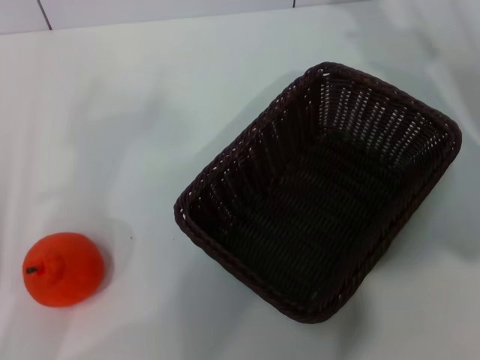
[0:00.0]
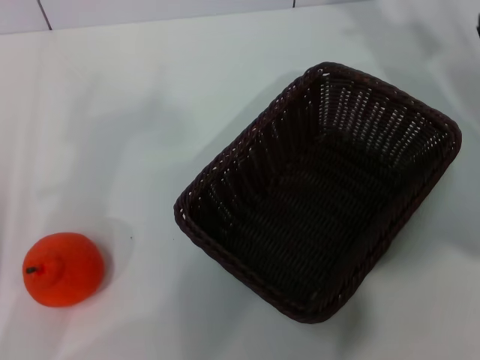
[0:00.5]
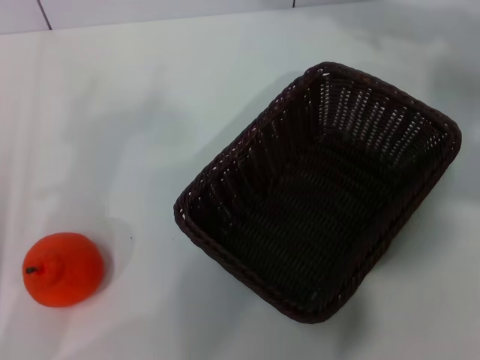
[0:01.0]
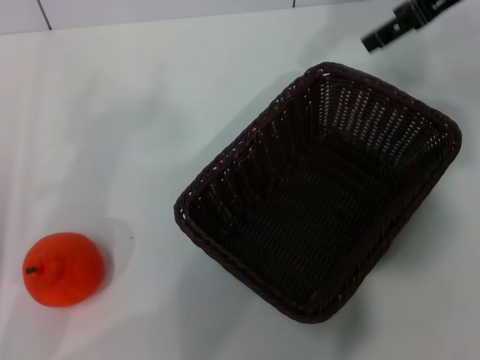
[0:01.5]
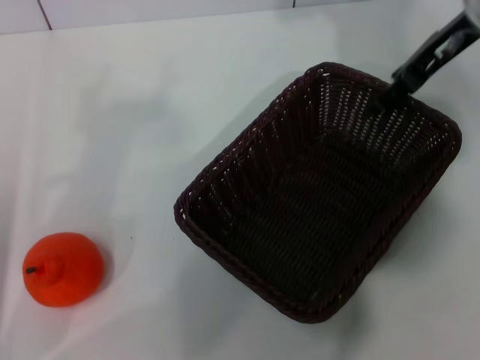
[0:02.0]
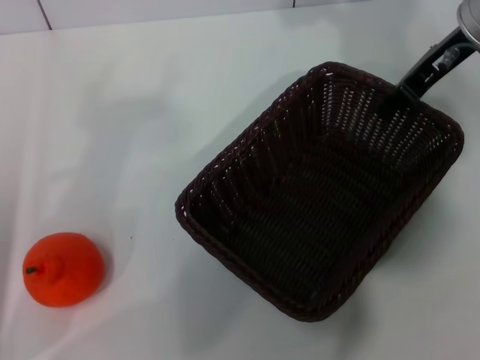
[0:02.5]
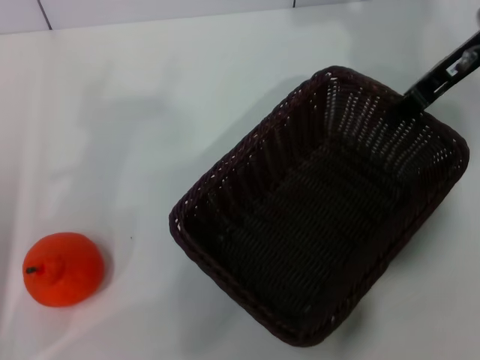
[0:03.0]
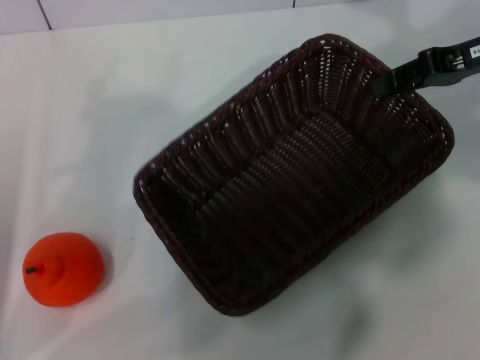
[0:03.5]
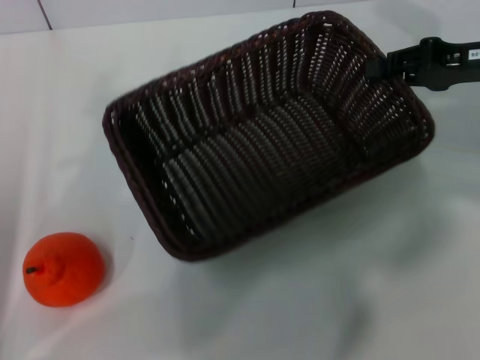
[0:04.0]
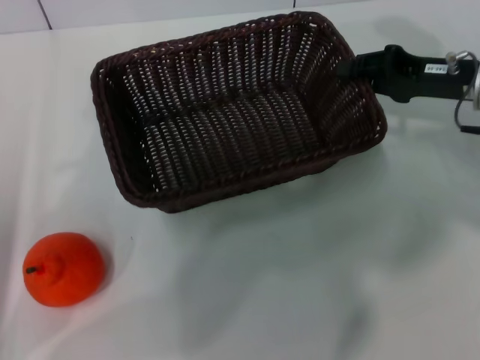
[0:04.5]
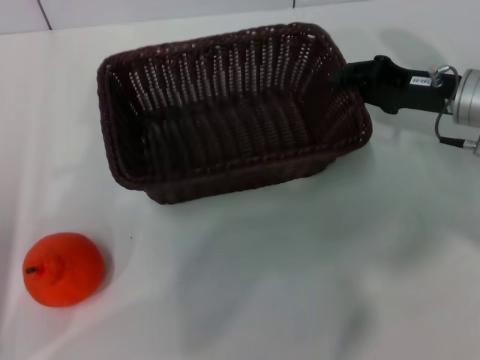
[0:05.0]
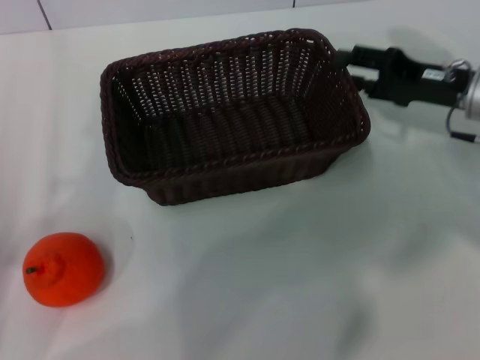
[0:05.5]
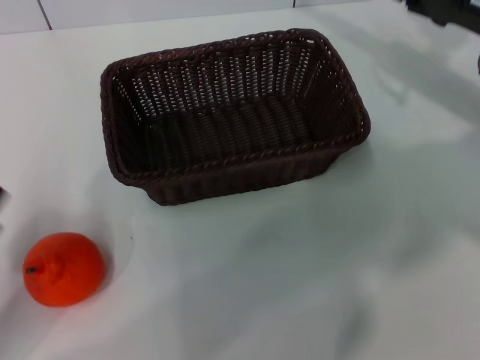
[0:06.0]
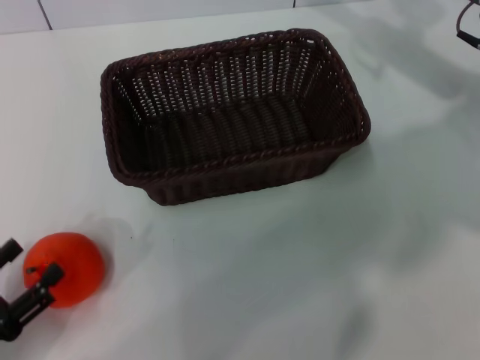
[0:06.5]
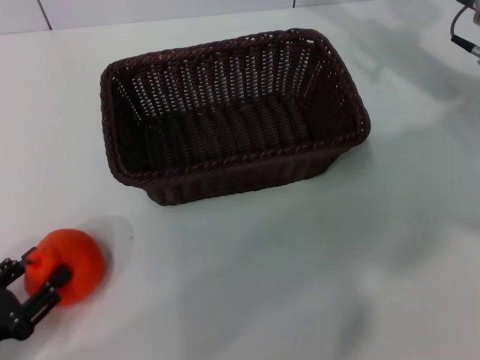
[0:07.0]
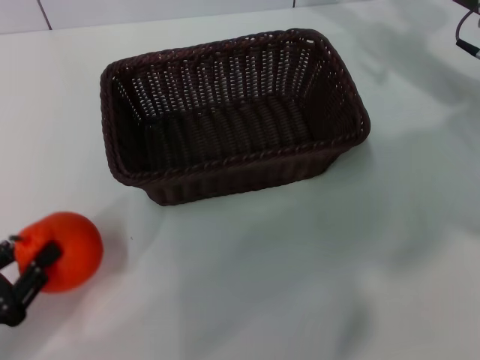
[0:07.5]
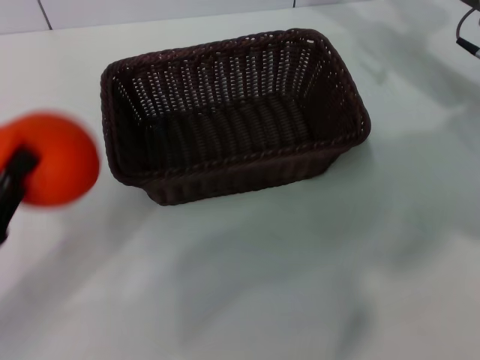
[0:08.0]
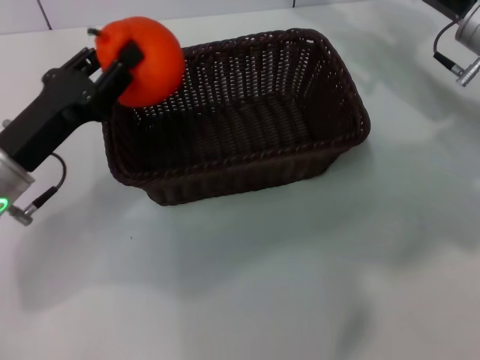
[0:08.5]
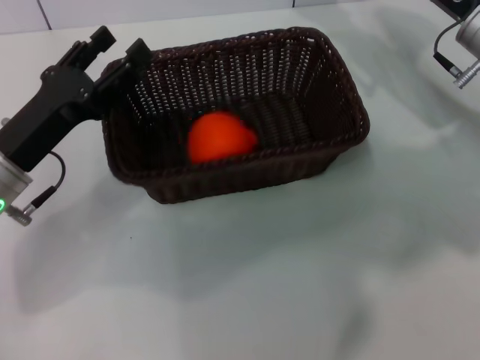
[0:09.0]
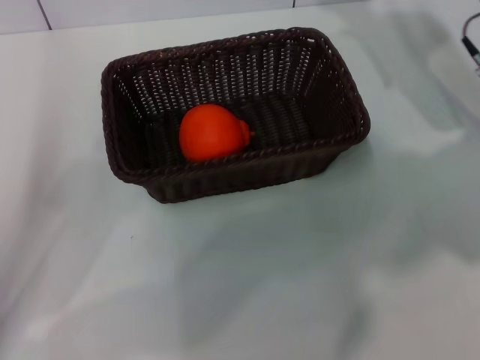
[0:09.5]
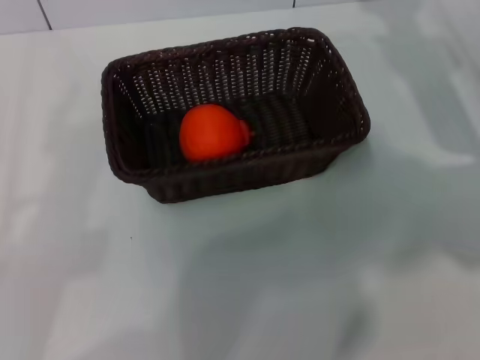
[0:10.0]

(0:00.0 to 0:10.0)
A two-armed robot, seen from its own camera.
Task of the whole recording: the right gripper pick up the black basket and place it horizontally in the middle of the table, the left gripper pick up the orange and place it into the black basket.
Step, 0:00.0 - 0:03.5: Pick up the dark basket with the right gripper.
Step, 0:04.0 - 0:05.5: Place the dark basket in the center of view with the right gripper.
Step, 0:06.0 - 0:07.5: Pick up the orange with the left gripper.
Step, 0:08.0 - 0:09.0: Place the orange into the dark basket with the left gripper.
0:00.0 - 0:02.0: The right gripper shifts approximately 10 cm upward.
0:02.0 - 0:04.0: The right gripper moves to the right, downward and backward, roughly 10 cm, and closes its fingers.
0:04.0 - 0:06.0: The right gripper opens its fingers. Meanwhile the left gripper travels backward by about 5 cm.
0:06.0 - 0:08.0: The left gripper closes its fingers.
0:08.0 - 0:10.0: The left gripper goes forward and returns, about 10 cm each way, and opens its fingers.
